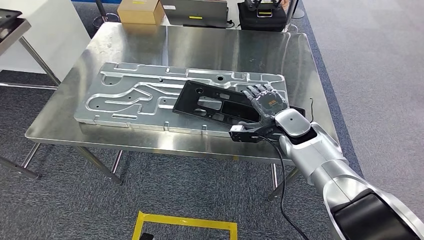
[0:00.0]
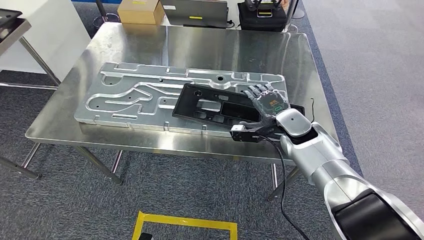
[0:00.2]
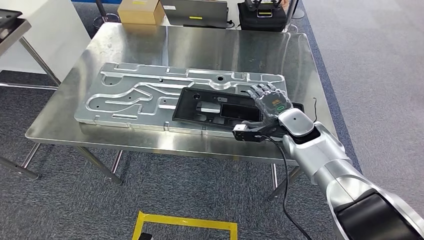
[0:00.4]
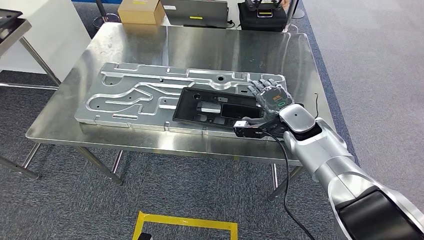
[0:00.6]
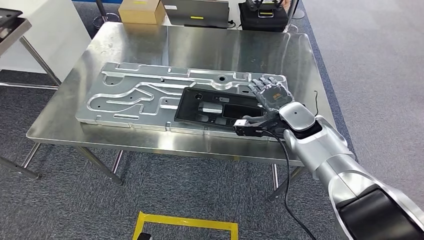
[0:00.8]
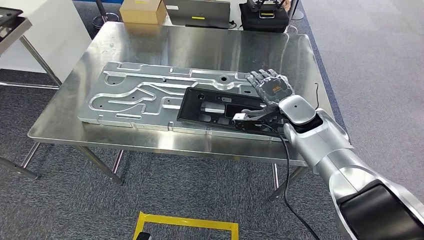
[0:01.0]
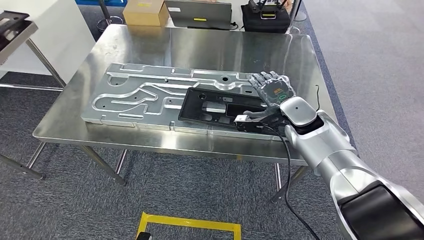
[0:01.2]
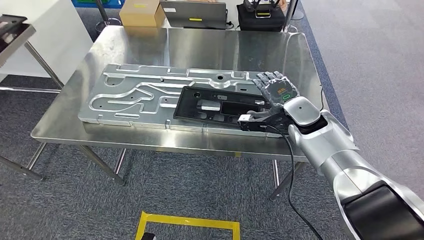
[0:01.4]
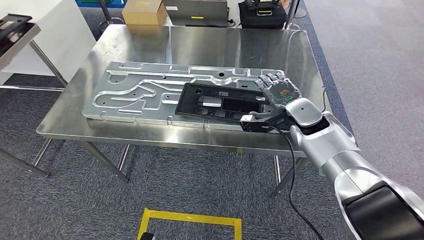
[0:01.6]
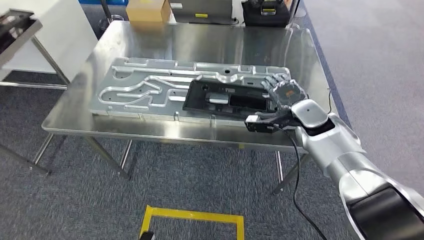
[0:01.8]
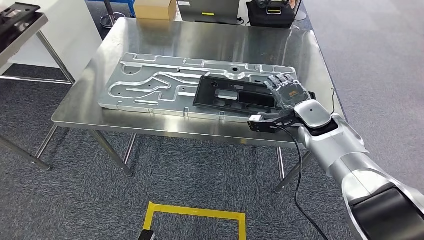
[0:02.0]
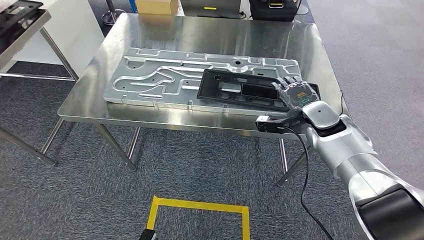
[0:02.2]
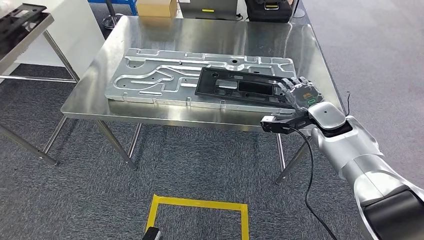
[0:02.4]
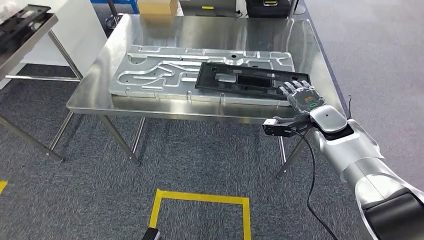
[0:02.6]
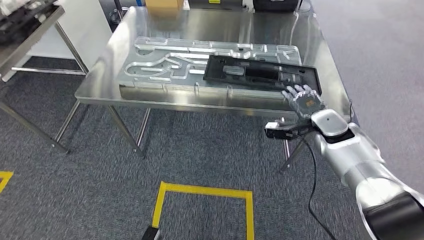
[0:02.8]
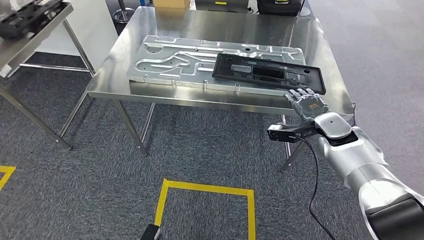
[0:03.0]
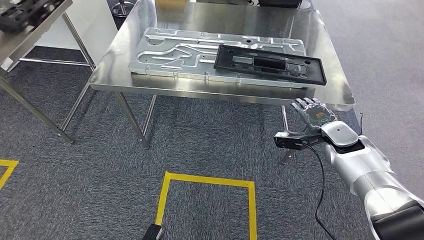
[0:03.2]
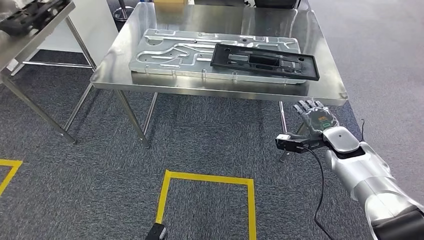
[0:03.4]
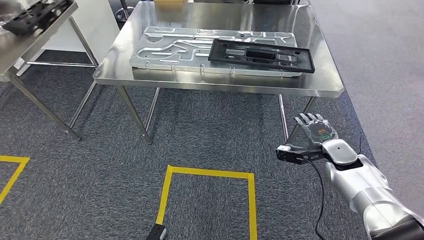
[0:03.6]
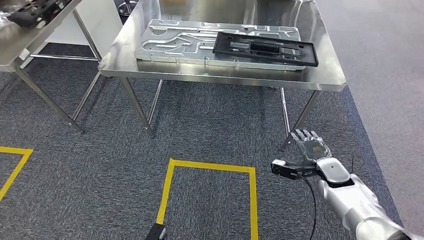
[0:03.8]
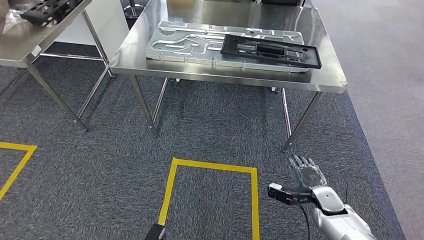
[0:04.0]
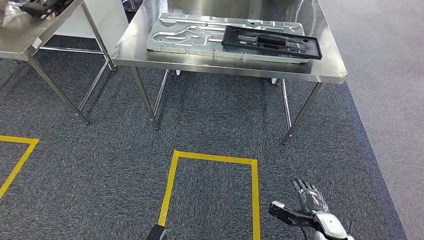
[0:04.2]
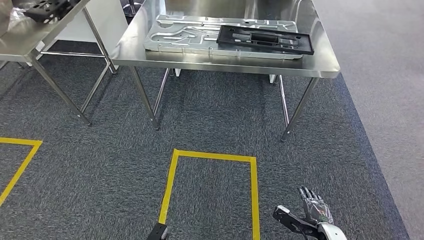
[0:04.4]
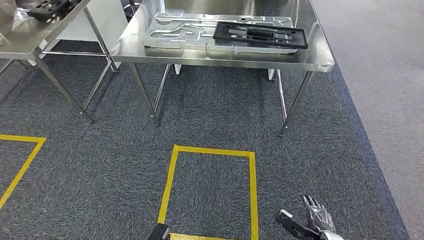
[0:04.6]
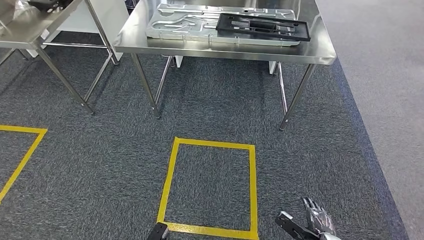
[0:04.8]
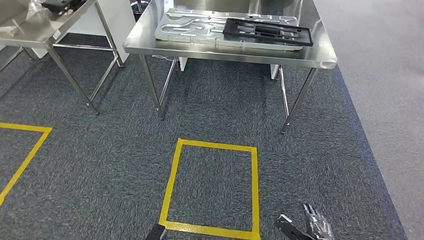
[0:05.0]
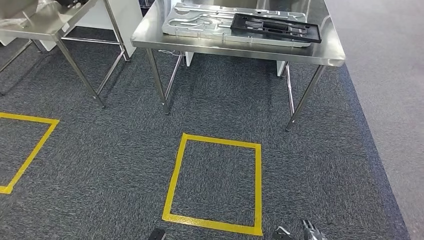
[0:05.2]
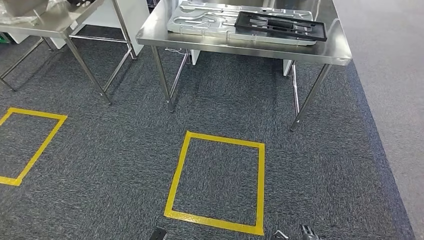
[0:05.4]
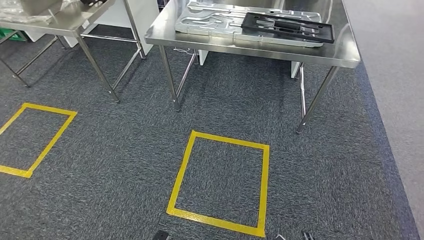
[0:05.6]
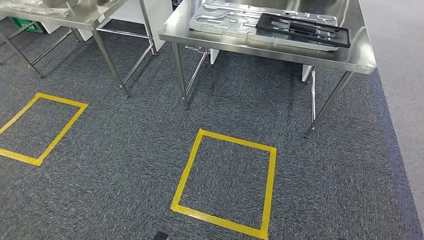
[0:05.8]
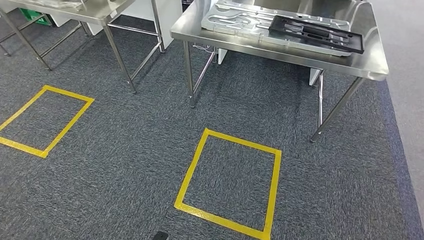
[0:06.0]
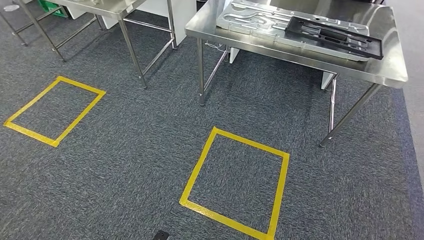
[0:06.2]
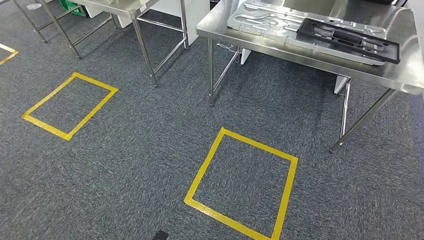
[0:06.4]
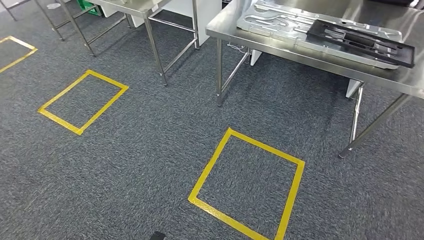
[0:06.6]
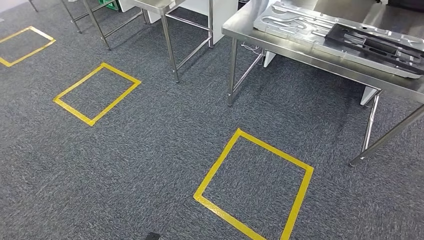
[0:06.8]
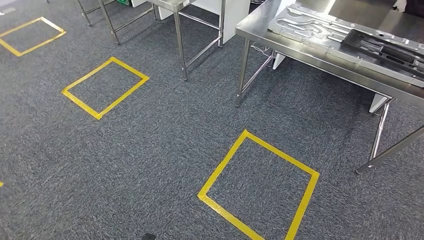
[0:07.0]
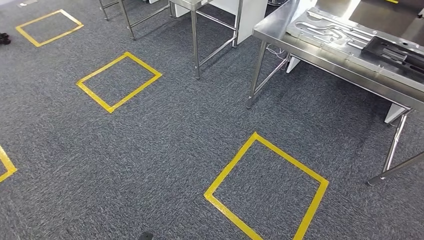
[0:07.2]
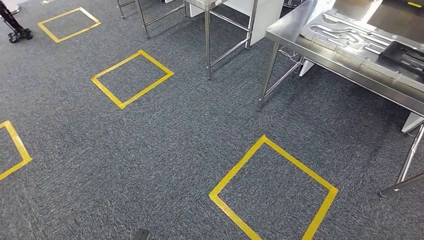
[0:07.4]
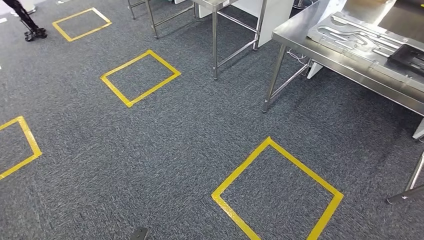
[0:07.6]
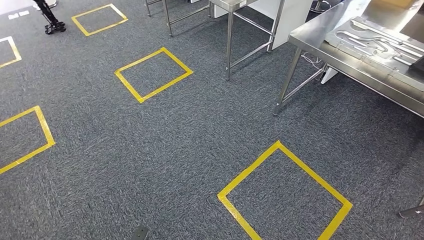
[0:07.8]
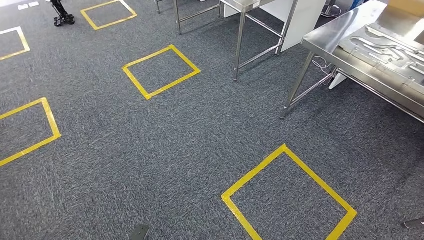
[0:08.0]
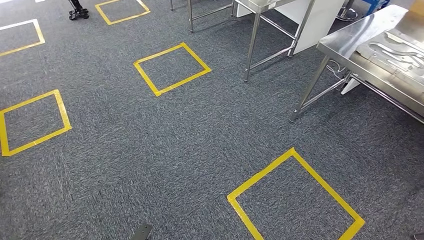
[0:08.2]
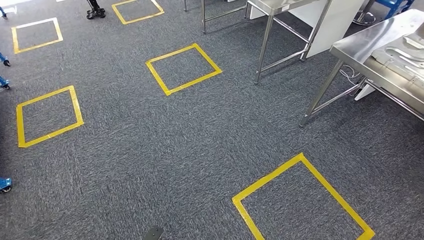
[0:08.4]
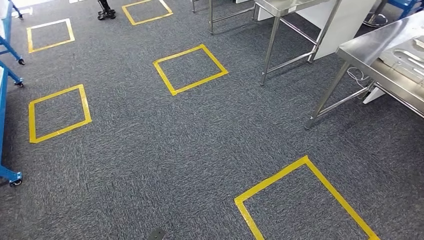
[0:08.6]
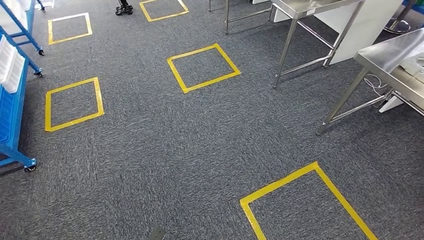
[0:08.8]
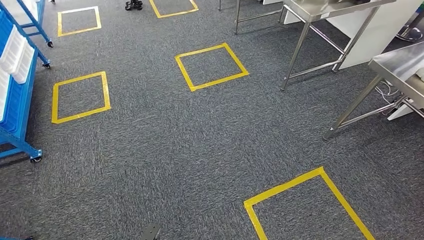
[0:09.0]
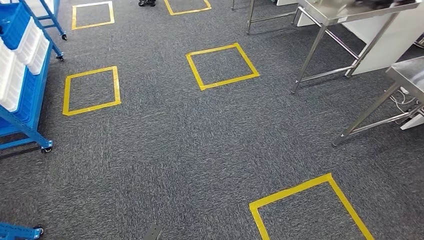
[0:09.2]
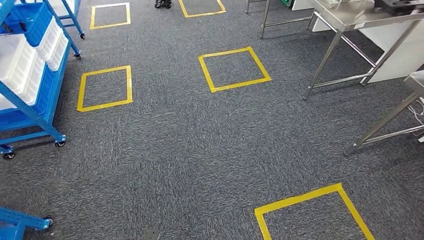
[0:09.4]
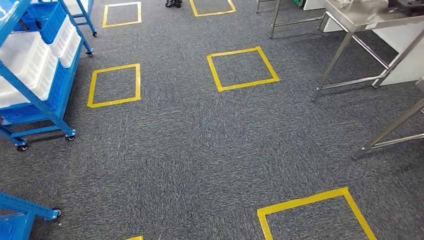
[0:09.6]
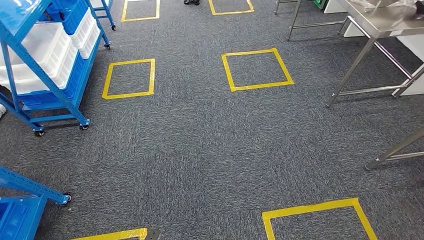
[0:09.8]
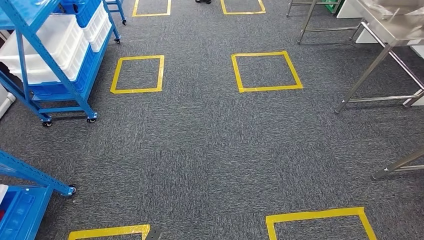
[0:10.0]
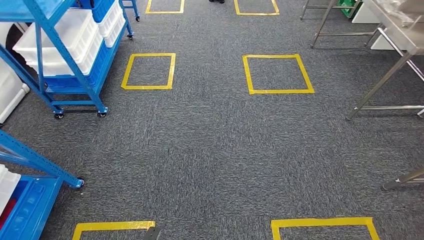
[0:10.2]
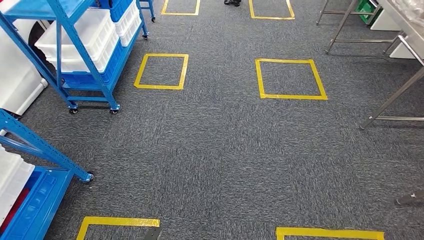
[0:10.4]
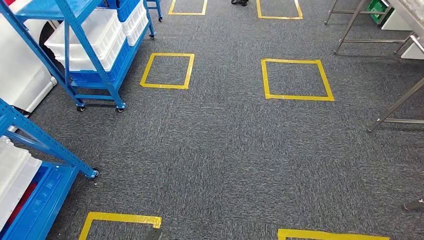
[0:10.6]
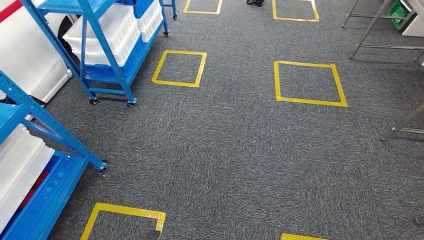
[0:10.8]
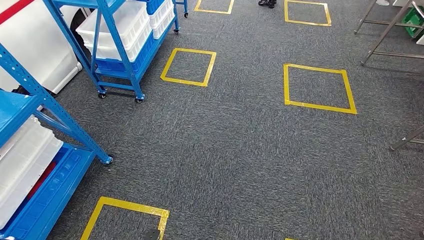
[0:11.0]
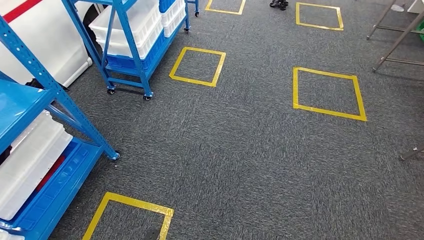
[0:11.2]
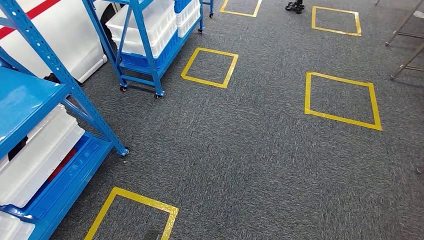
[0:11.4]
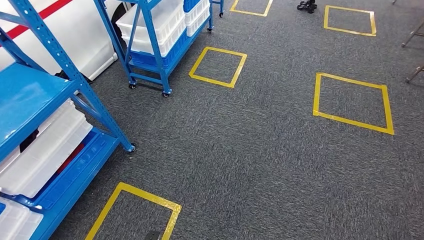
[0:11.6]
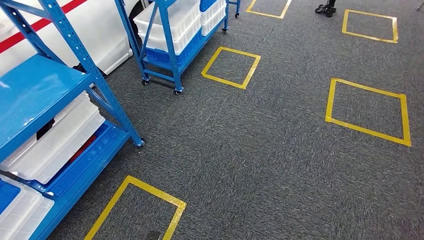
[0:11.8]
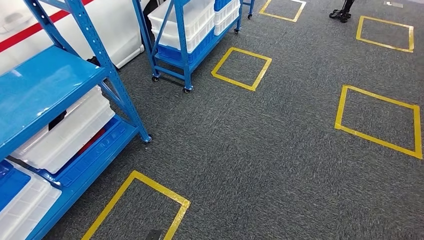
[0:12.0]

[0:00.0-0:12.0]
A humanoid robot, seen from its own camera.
Step, 0:00.0 to 0:03.4: Insert the large material into the corresponding slot on the workbench.

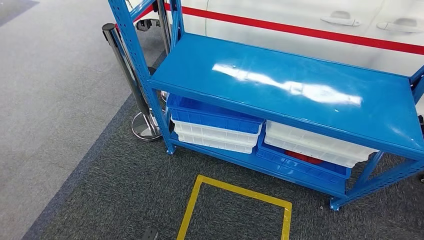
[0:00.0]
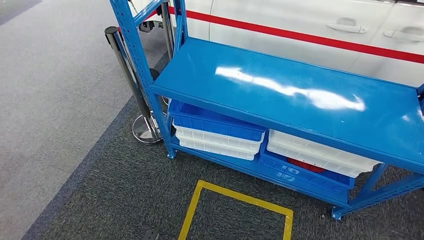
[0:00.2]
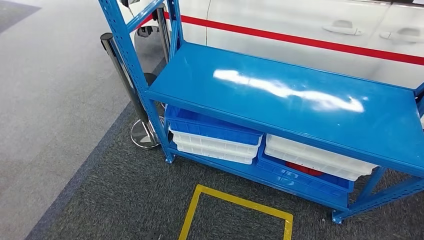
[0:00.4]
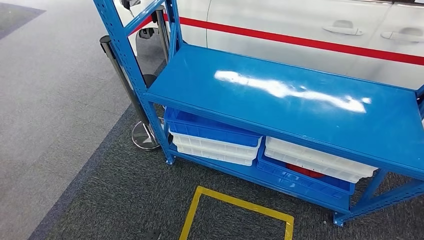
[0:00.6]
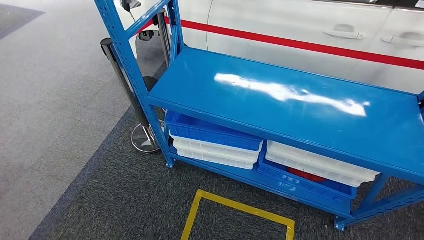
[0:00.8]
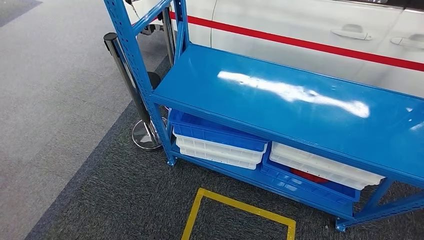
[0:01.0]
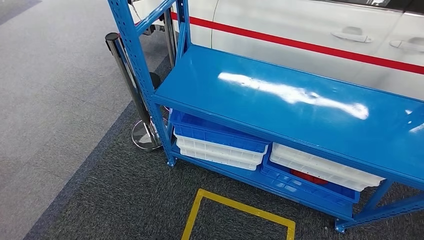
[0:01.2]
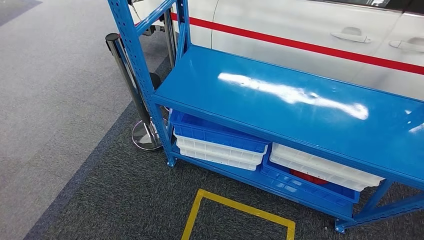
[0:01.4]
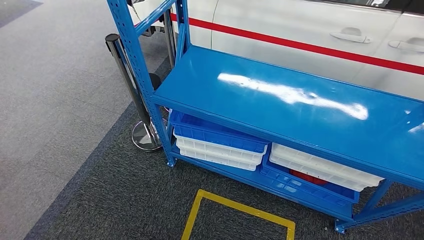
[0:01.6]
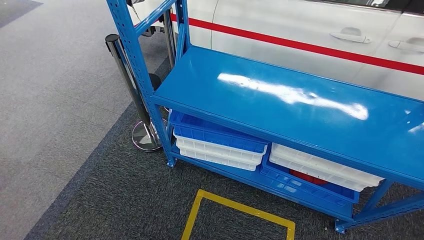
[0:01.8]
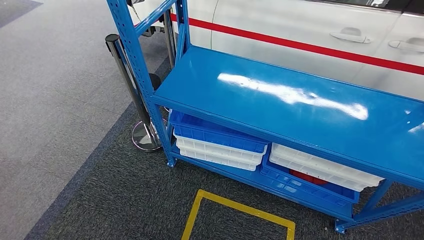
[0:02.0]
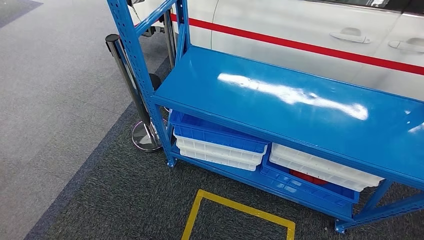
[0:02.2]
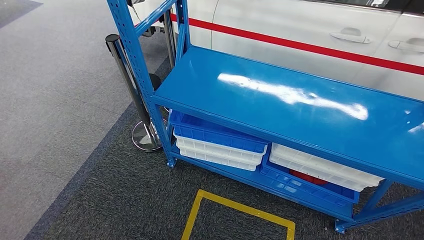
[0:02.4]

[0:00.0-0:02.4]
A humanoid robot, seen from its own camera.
Step, 0:00.0 to 0:02.4: Return to the initial position at the shelf.
